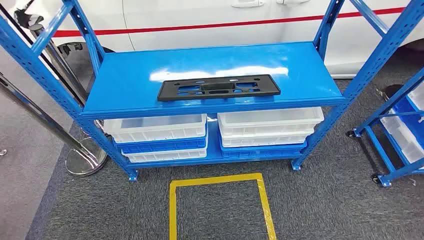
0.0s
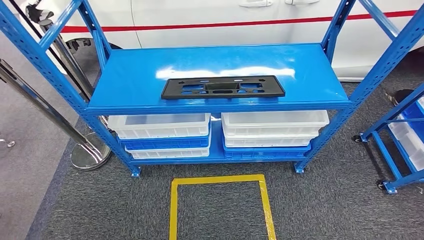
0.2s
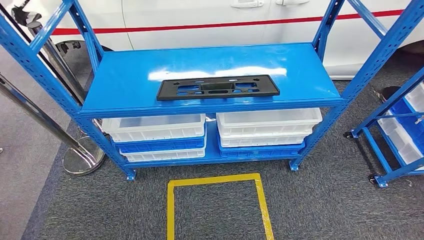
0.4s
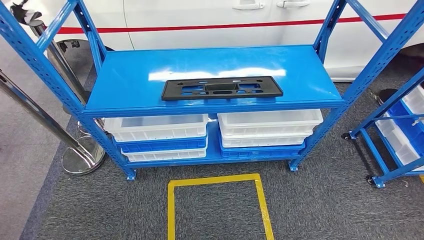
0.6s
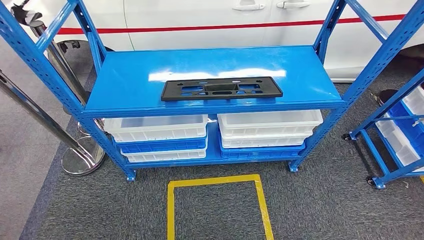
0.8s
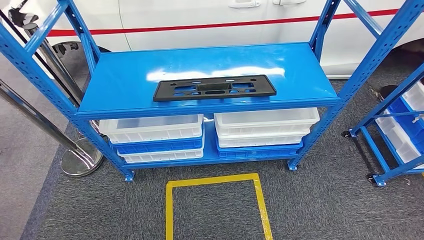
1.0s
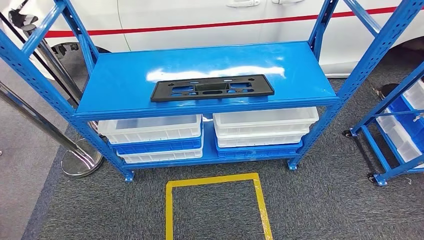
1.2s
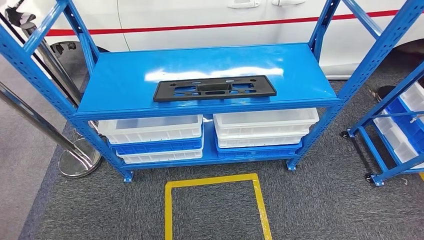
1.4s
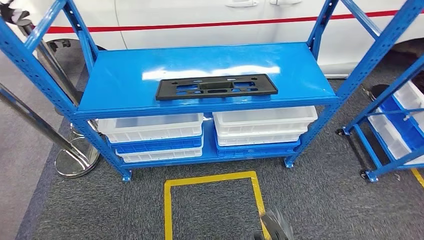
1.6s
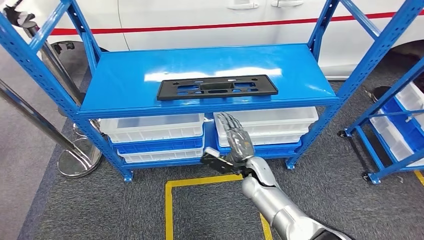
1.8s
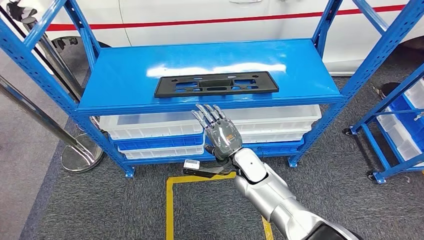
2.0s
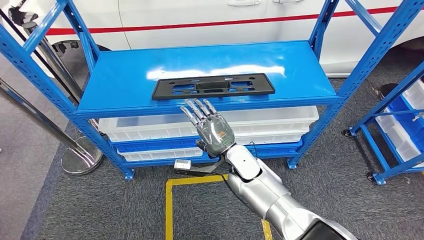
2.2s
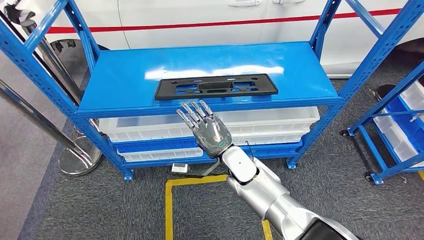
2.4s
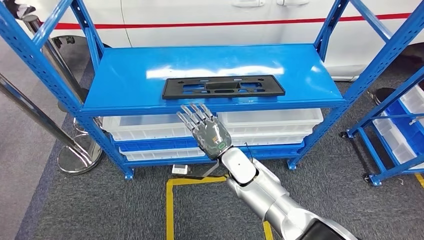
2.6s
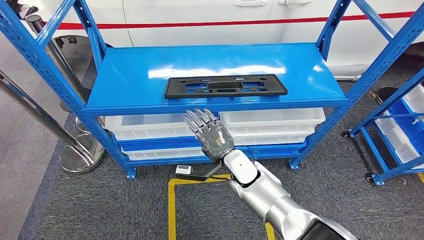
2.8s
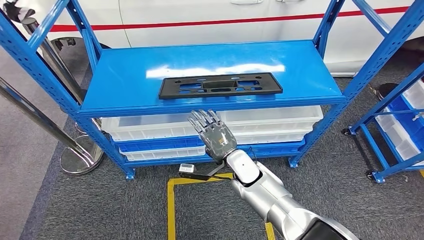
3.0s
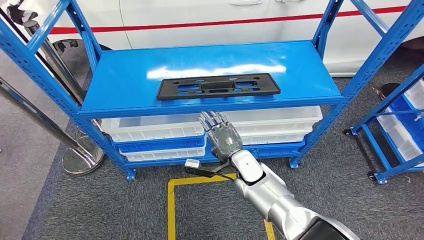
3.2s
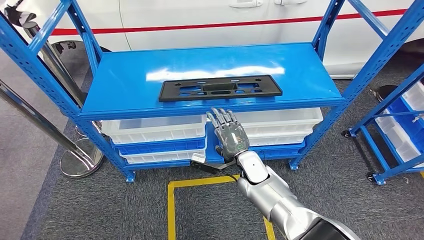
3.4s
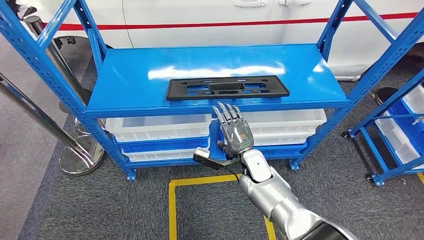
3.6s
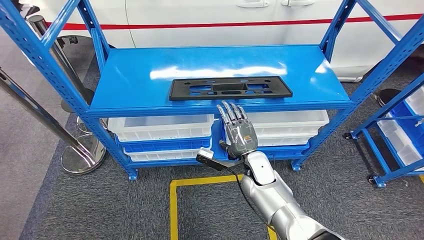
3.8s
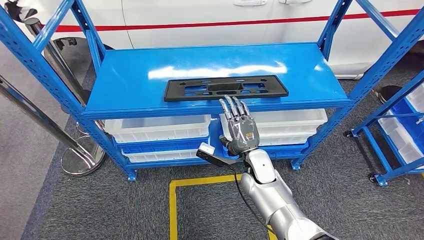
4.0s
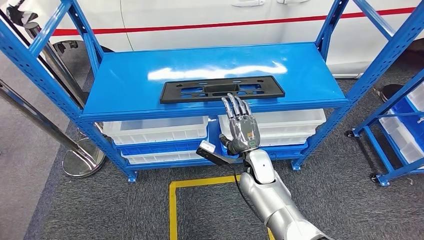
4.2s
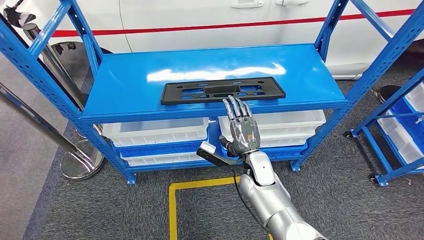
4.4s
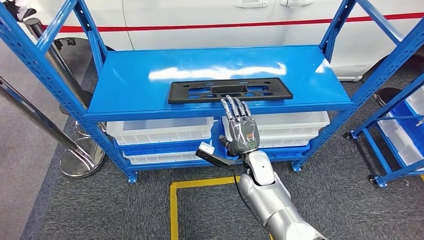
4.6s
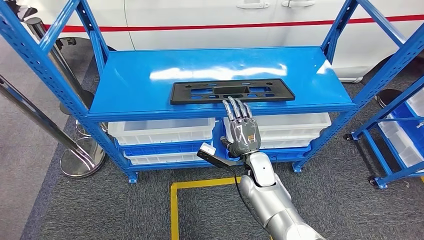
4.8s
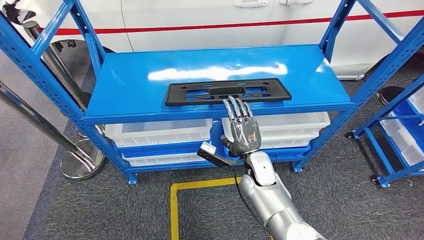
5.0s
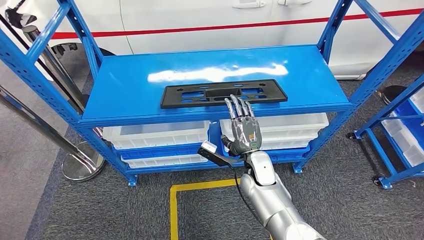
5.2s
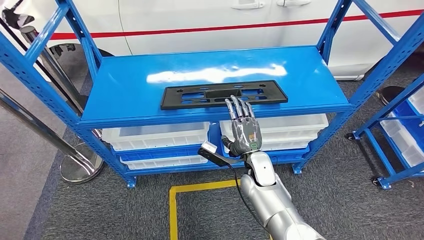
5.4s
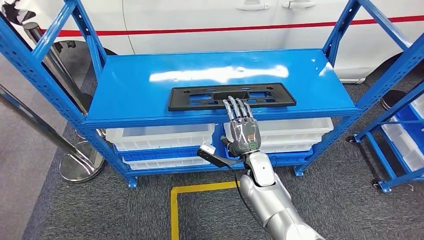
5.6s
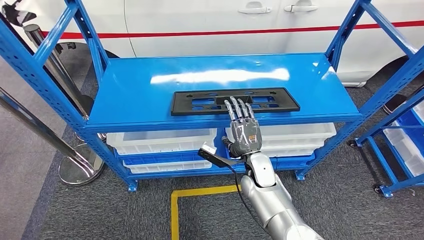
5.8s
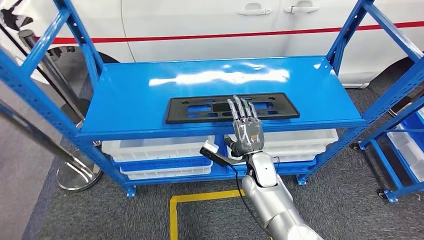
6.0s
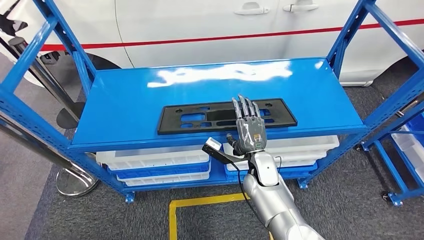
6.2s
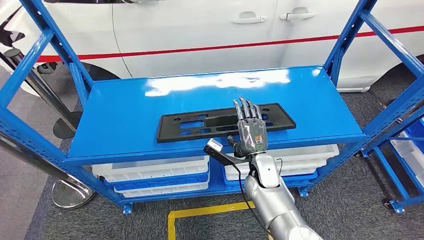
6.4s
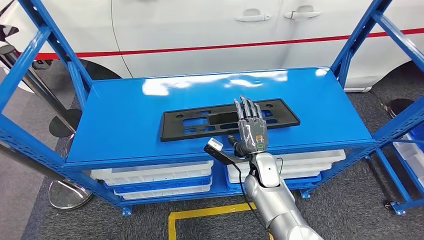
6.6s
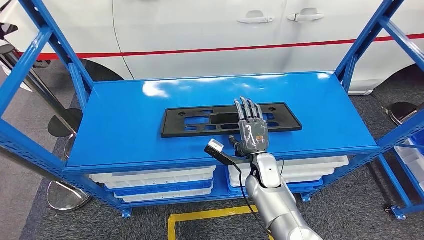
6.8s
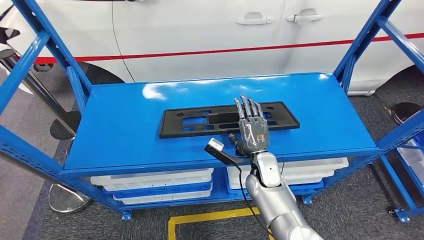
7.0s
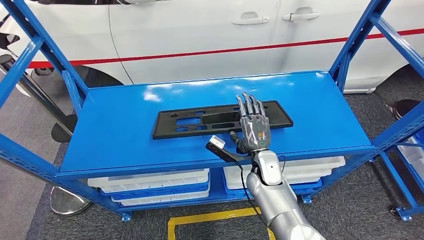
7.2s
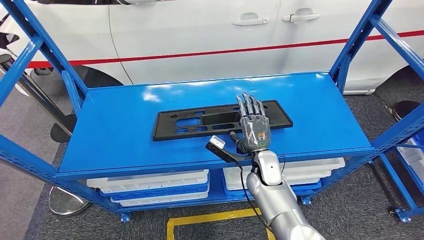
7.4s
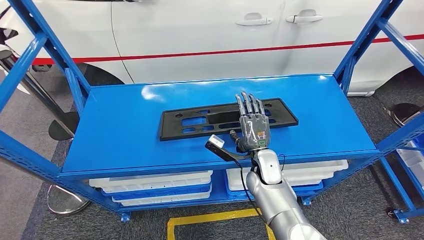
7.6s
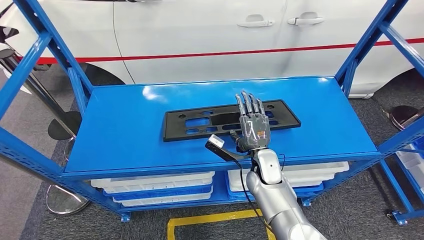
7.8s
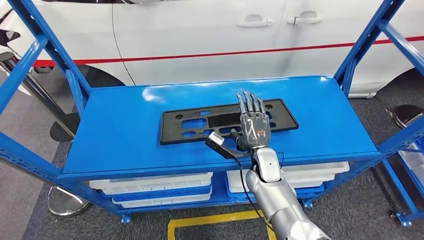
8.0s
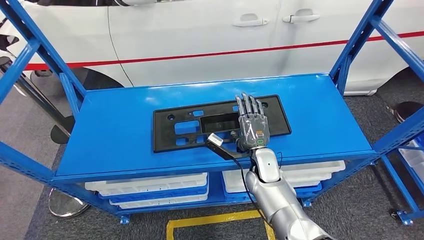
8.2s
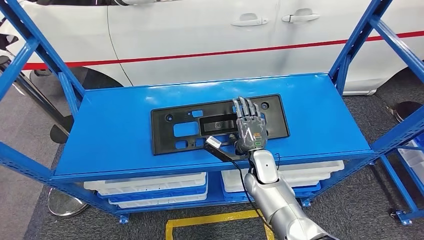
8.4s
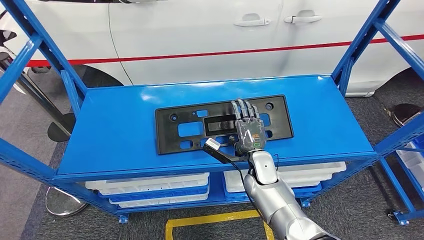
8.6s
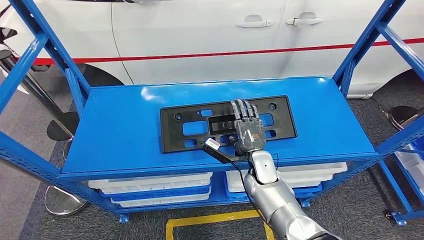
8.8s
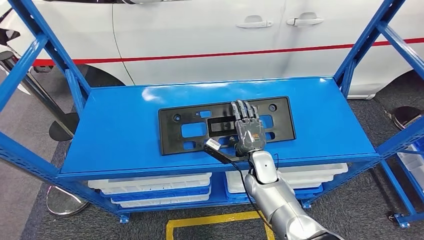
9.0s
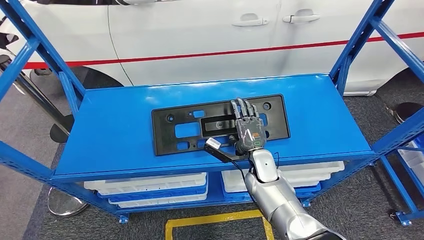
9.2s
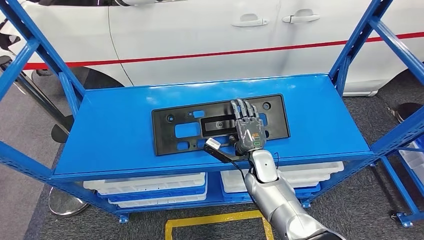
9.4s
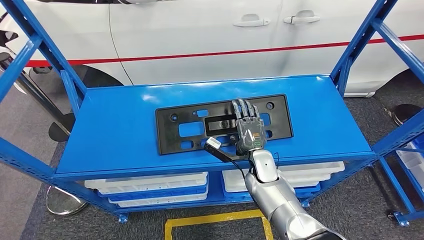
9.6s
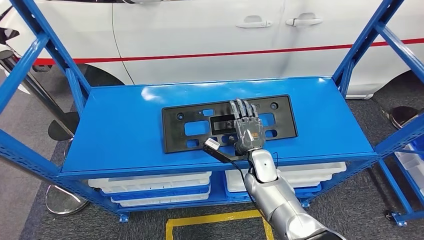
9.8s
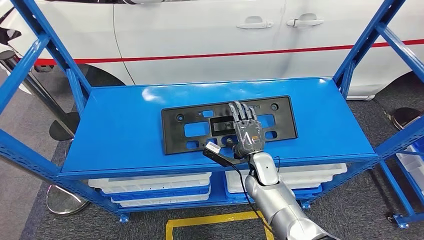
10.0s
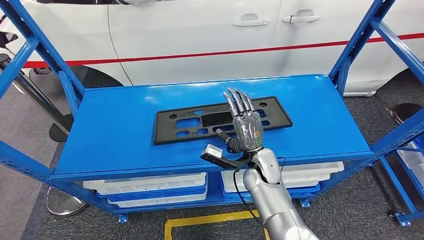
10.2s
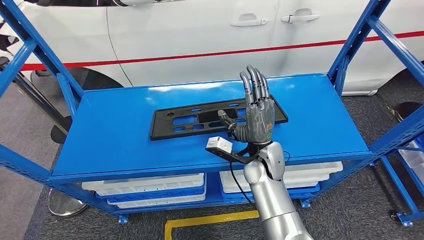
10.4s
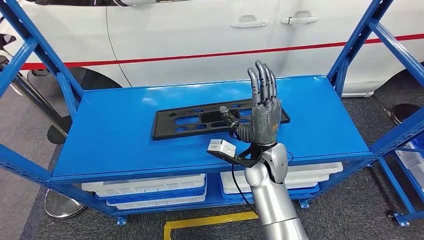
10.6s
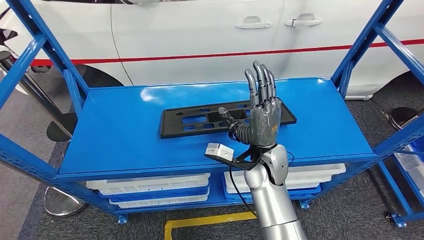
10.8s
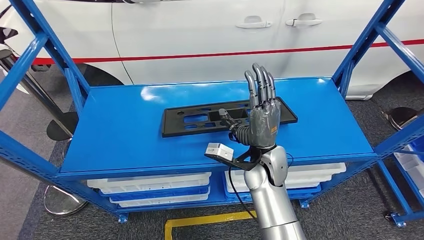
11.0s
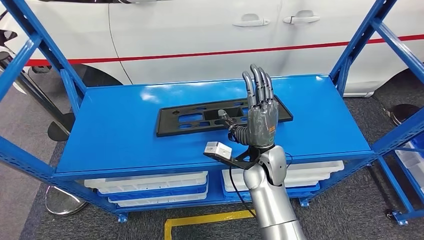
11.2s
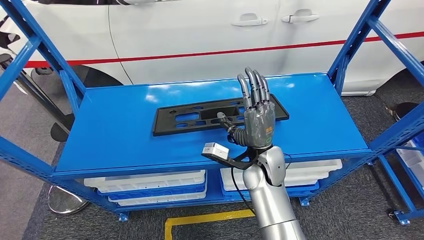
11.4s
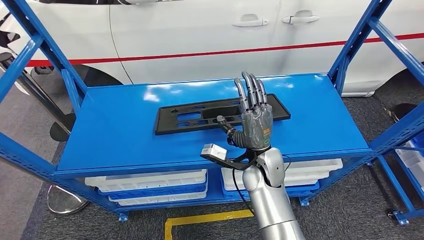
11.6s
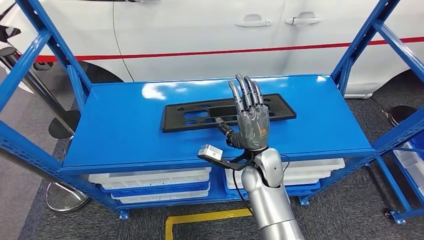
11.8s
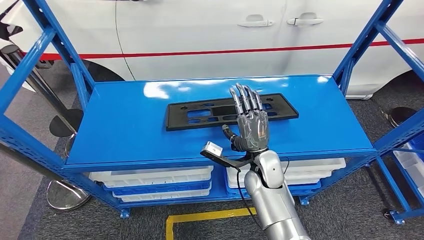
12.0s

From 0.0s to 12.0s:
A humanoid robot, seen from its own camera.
From 7.6s to 9.0s: The hands make only small movements.

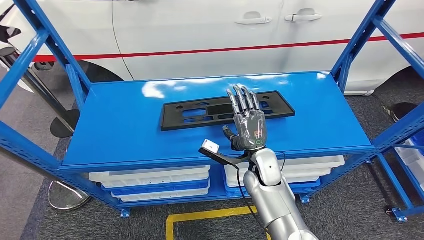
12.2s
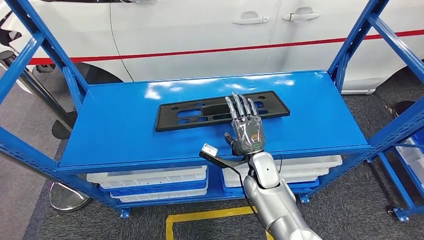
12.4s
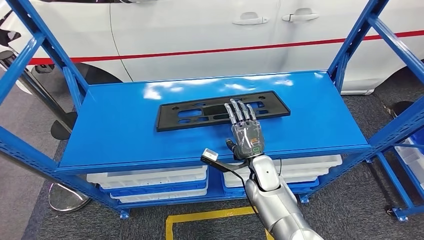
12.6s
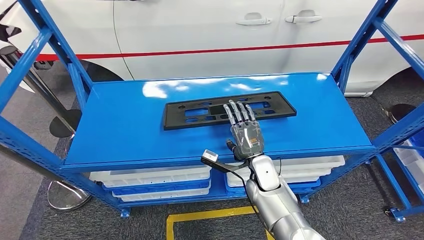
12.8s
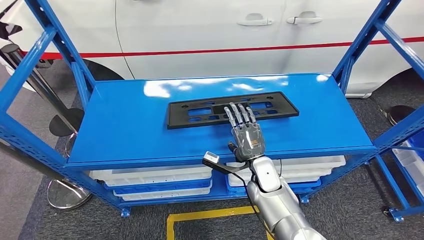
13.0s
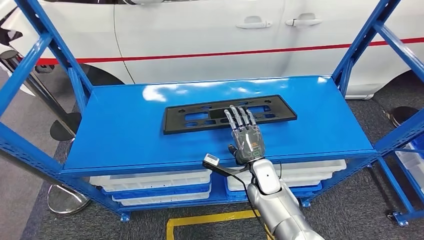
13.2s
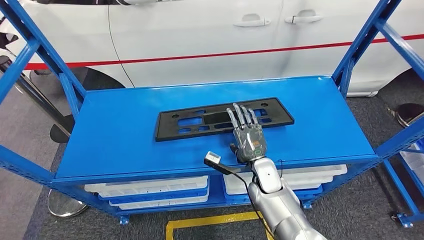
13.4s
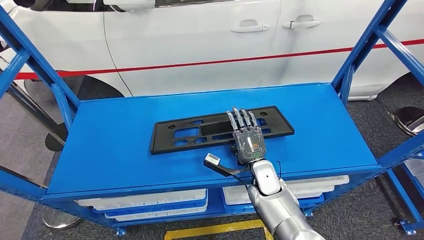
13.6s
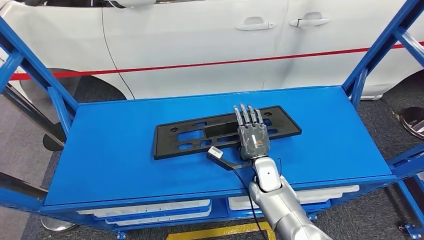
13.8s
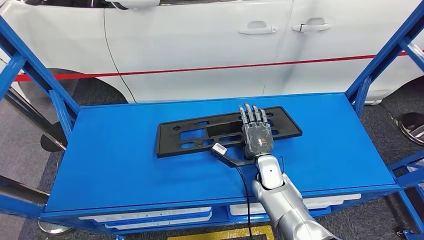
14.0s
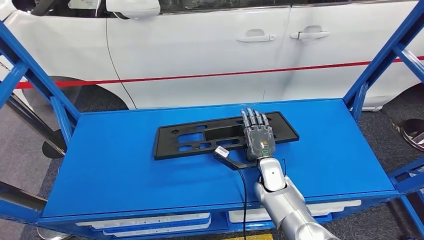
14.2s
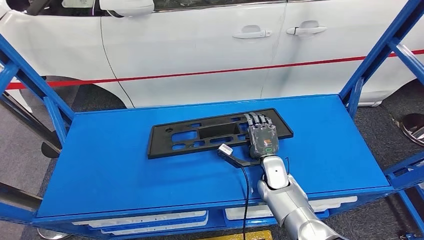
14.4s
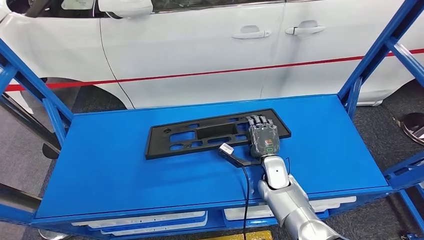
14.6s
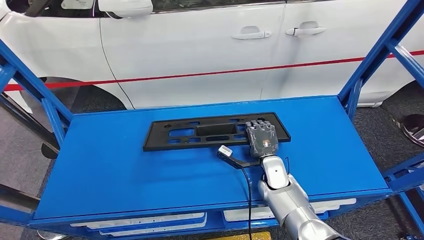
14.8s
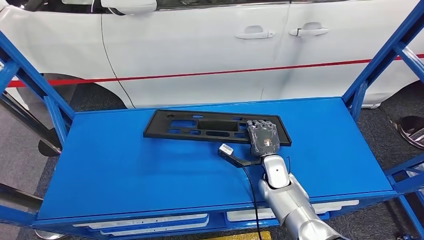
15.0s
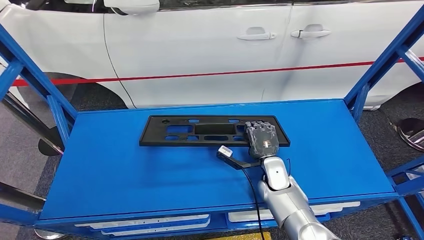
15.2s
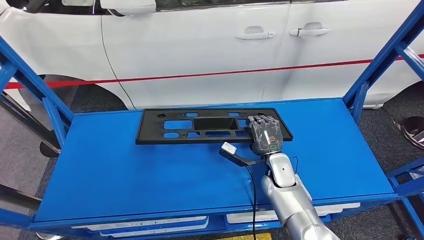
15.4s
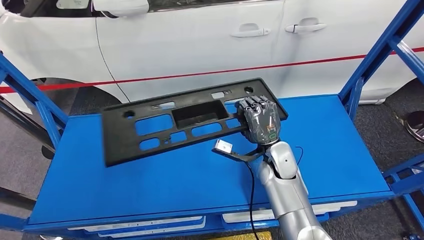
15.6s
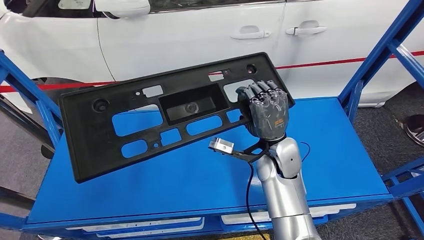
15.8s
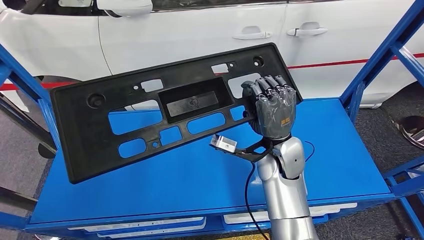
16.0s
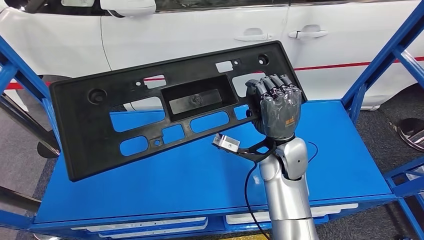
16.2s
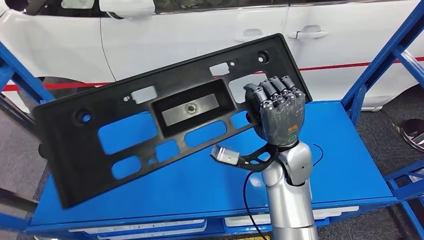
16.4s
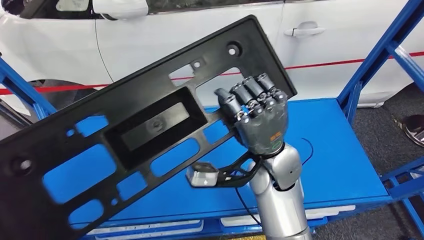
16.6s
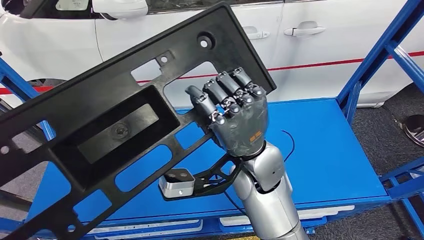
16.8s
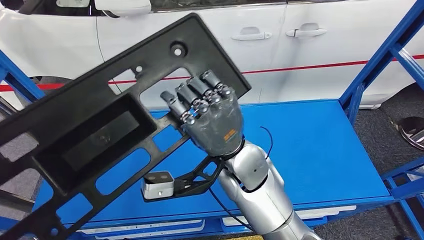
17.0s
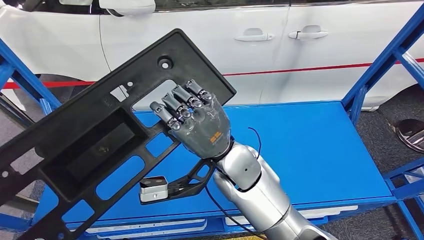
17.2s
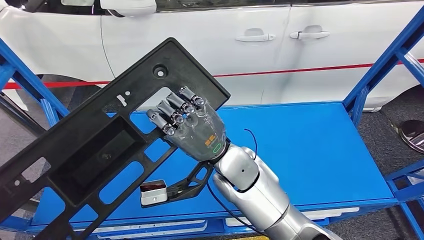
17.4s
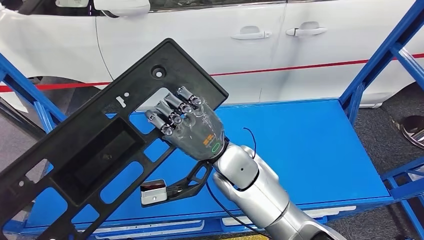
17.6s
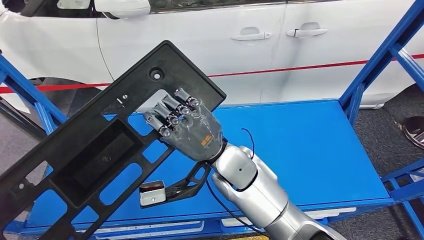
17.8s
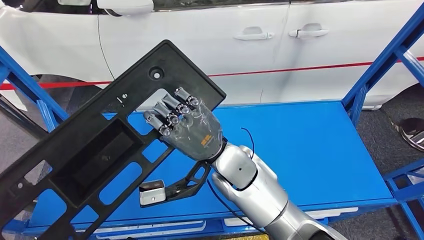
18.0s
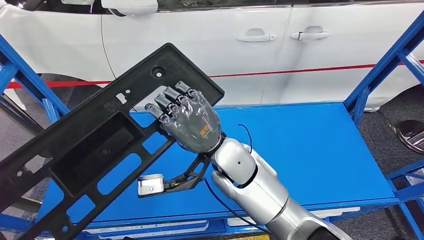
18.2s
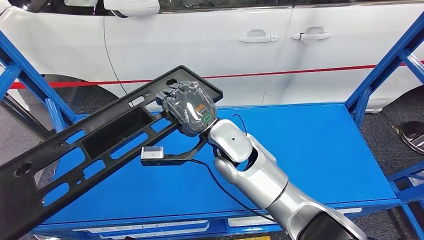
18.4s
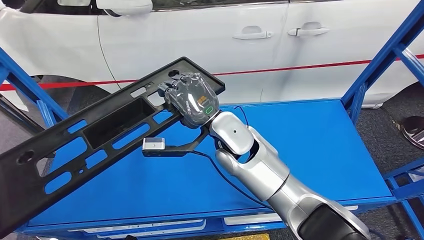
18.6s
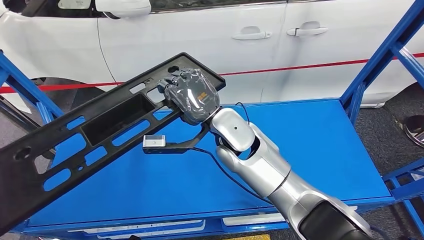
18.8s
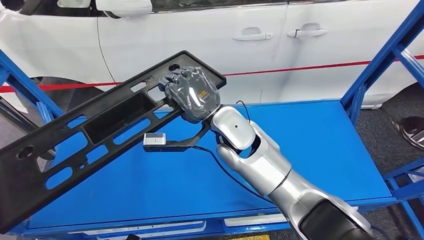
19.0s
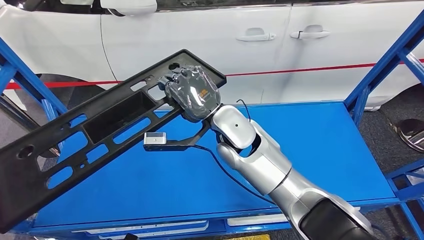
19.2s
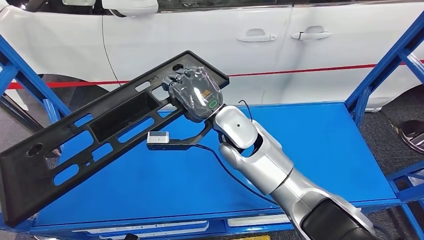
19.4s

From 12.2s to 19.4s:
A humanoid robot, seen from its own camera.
Step, from 12.2s to 16.2s: Pick up the large material from the shelf.
